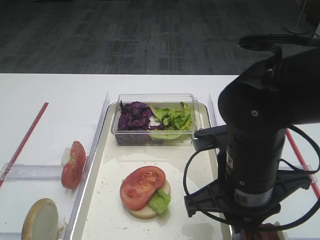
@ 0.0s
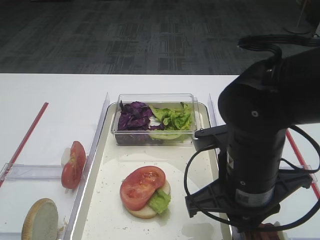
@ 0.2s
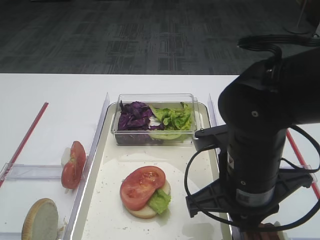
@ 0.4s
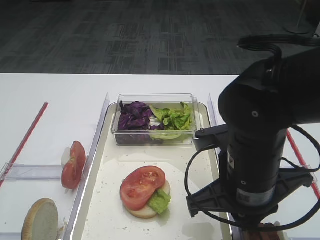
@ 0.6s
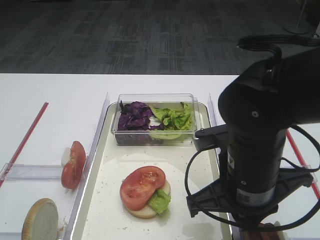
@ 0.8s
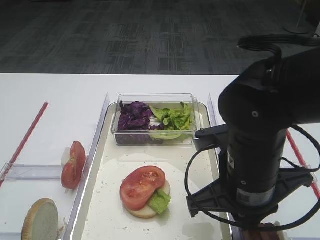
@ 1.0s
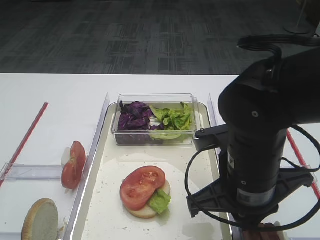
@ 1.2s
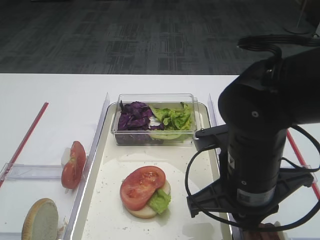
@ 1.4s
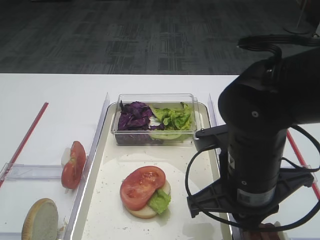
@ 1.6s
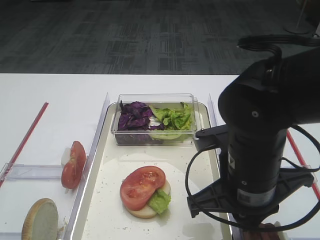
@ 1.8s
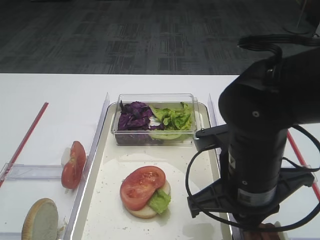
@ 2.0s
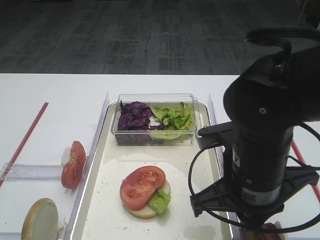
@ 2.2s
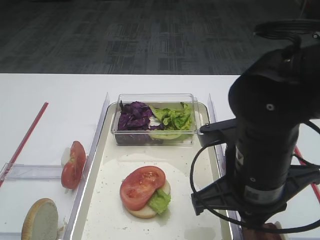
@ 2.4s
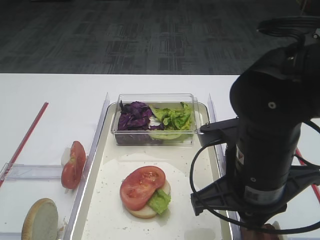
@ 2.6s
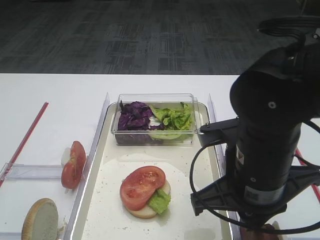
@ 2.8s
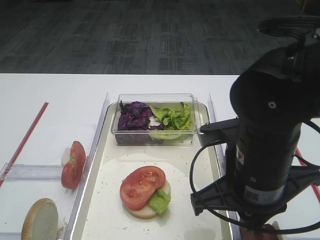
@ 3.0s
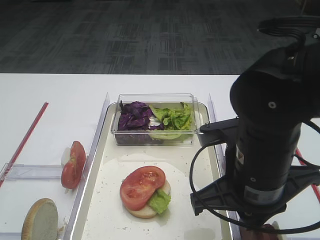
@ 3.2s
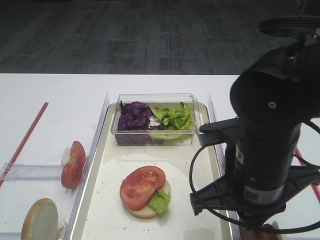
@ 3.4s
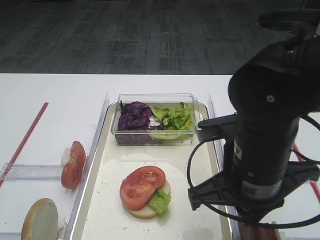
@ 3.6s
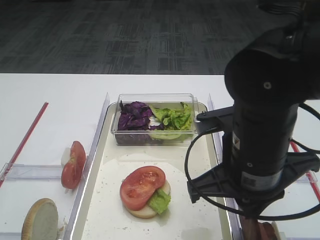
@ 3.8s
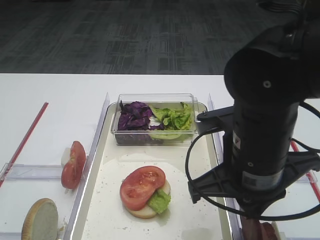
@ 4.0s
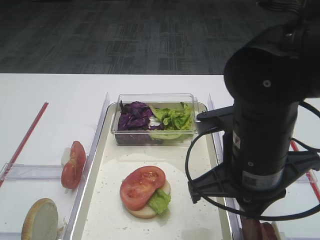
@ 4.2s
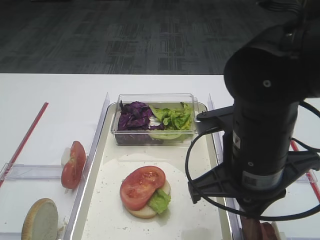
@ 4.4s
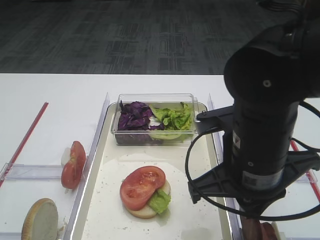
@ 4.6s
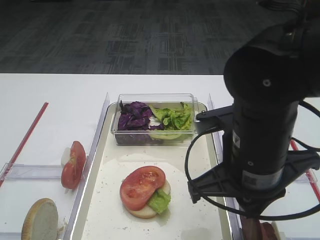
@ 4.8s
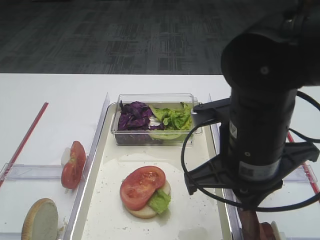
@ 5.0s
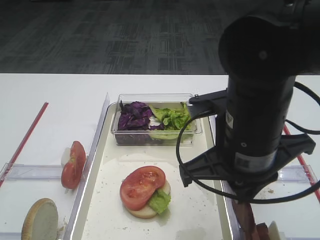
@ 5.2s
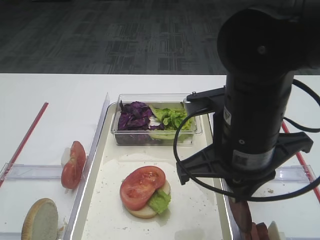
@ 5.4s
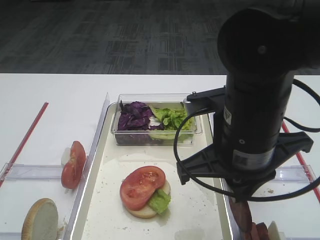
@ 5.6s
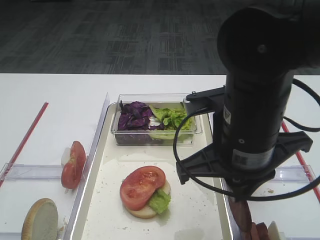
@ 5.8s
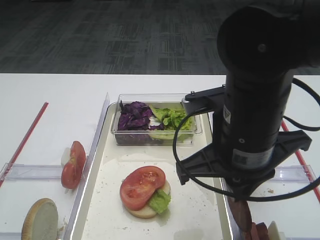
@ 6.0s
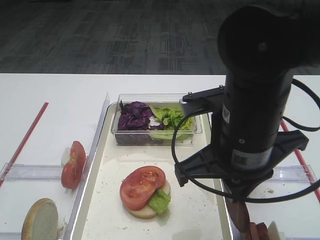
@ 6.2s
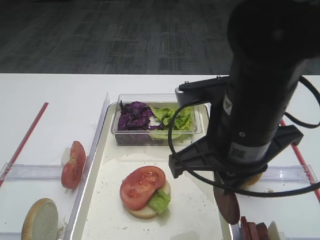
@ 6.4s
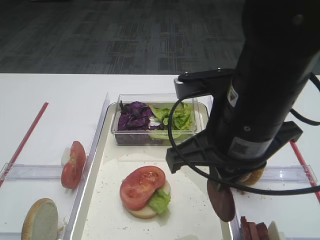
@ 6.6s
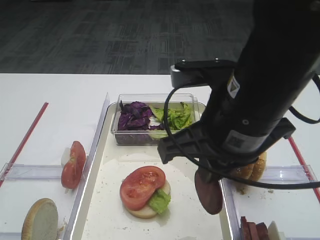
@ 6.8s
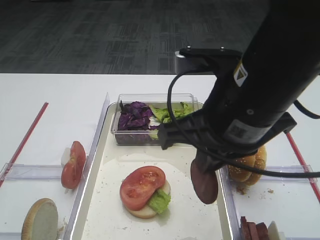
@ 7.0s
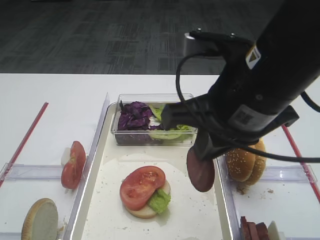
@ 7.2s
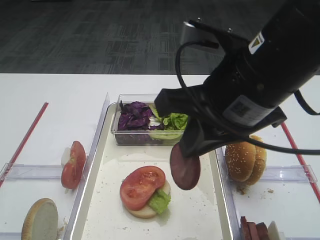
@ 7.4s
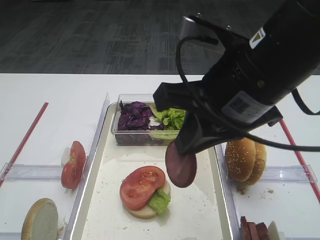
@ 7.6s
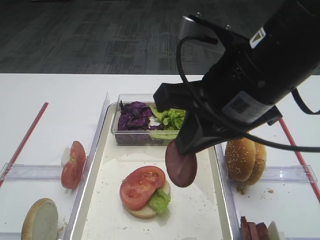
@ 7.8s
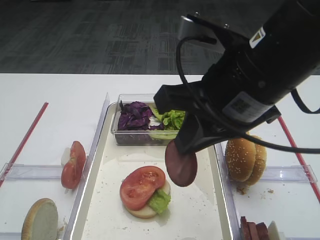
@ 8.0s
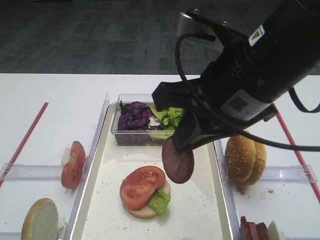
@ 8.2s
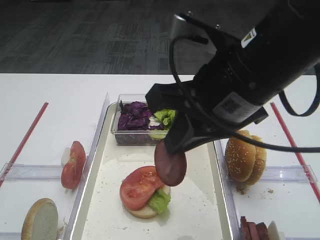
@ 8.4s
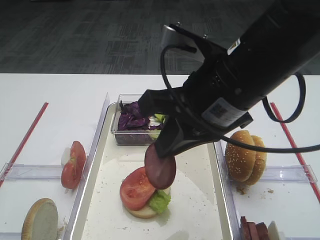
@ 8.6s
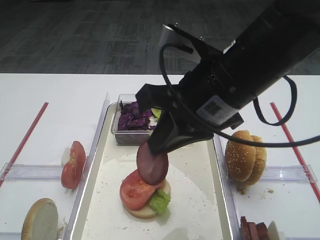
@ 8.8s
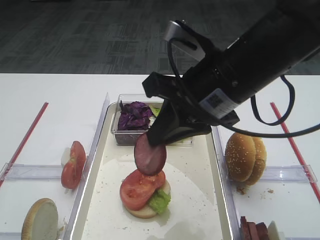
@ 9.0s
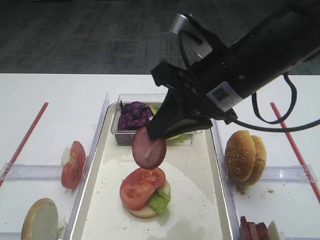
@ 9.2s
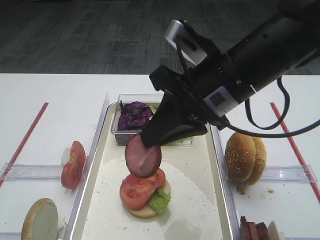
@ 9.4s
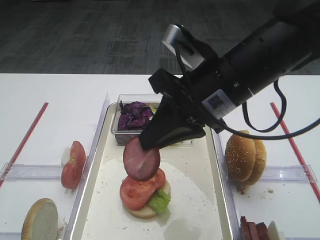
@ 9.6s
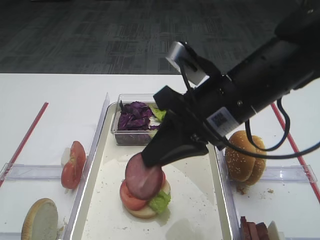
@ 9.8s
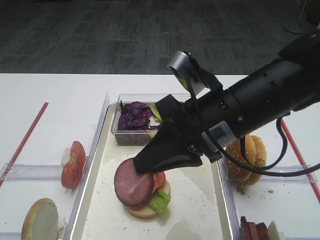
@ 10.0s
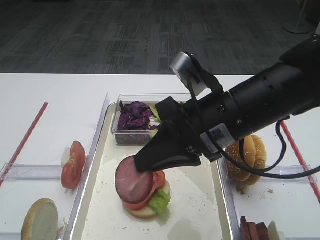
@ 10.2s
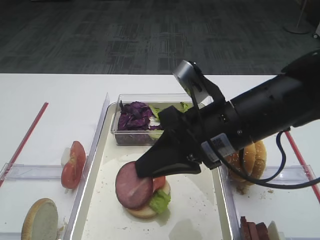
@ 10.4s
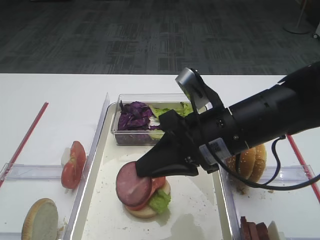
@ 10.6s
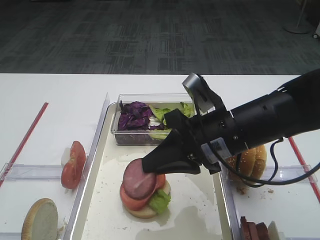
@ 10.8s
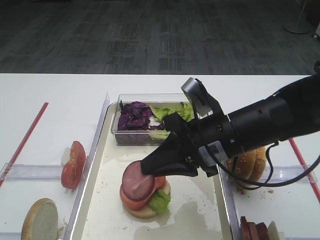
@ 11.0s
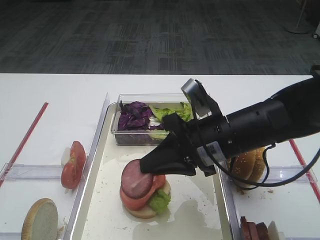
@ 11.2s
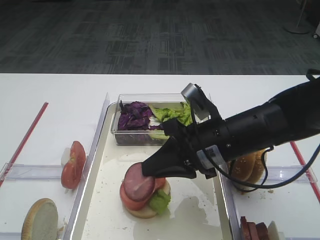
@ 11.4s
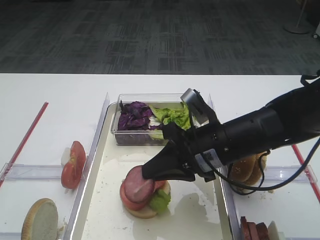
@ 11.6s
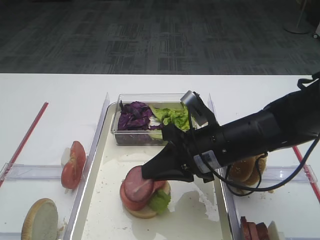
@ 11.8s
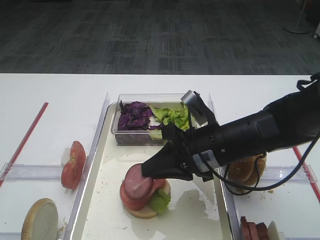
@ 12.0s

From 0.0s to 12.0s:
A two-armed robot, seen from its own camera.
Step, from 0.0s to 6.0s: Pick up the cutlet with the right gripper.
From 0.0s to 1.6s: Neither gripper changes place.
From 1.6s to 6.0s: The grippers make only small movements.
From 6.0s to 7.6s: The right gripper goes approximately 5 cm upward.
From 7.6s to 9.0s: The grippers stay close to where they were, moving slightly.
From 9.0s to 10.4s: The right gripper heads downward, covering approximately 5 cm.
From 10.4s to 12.0s: The right gripper moves downward, approximately 5 cm.

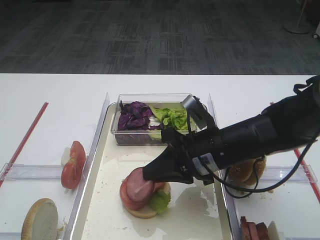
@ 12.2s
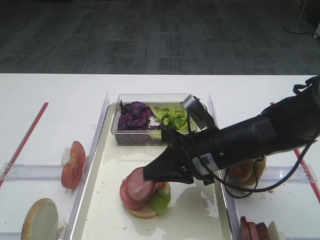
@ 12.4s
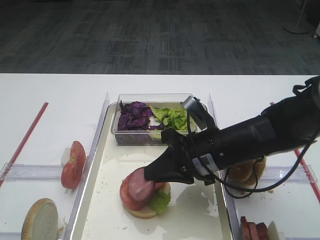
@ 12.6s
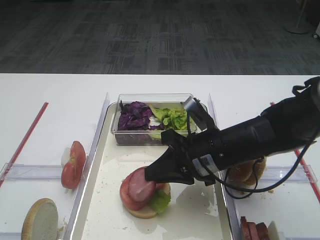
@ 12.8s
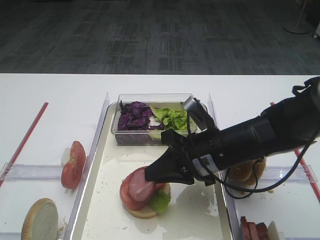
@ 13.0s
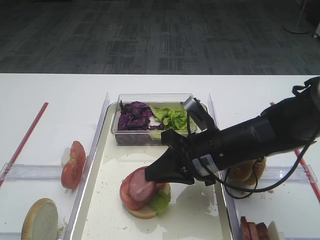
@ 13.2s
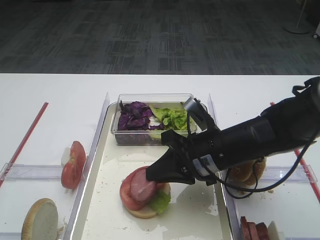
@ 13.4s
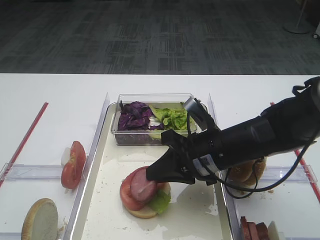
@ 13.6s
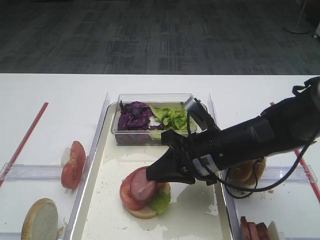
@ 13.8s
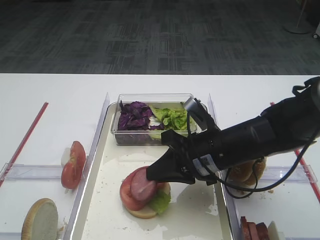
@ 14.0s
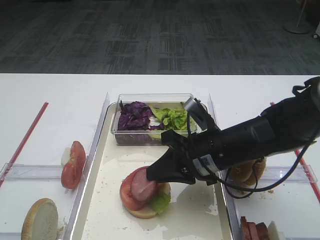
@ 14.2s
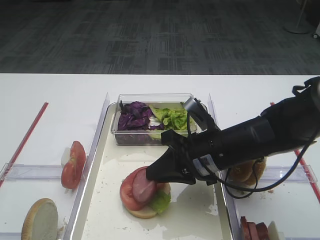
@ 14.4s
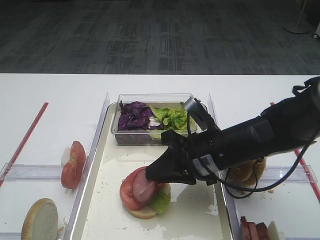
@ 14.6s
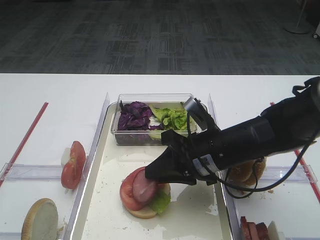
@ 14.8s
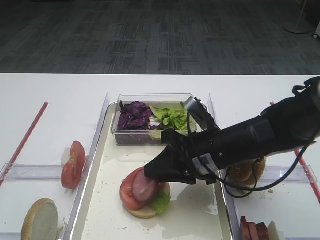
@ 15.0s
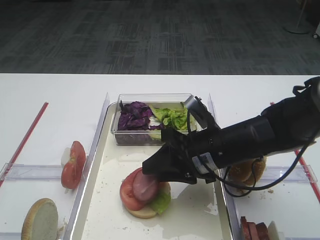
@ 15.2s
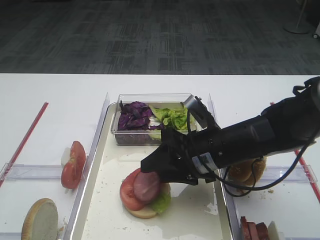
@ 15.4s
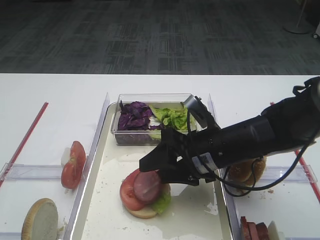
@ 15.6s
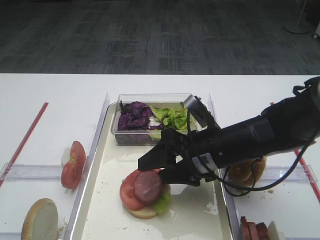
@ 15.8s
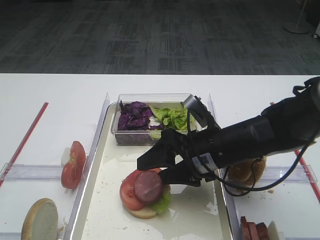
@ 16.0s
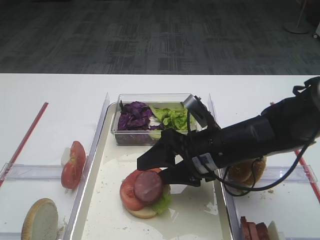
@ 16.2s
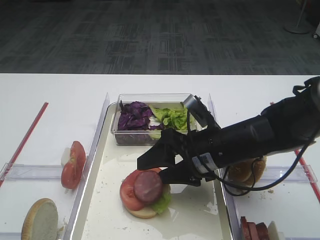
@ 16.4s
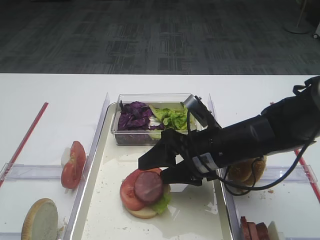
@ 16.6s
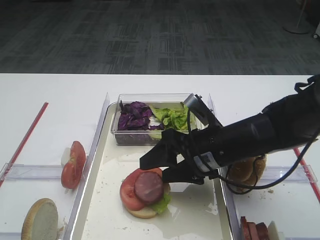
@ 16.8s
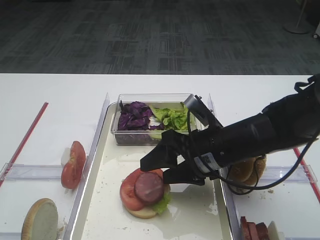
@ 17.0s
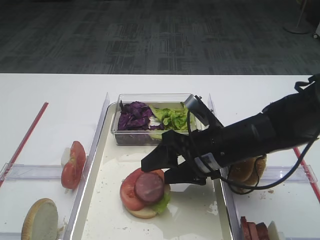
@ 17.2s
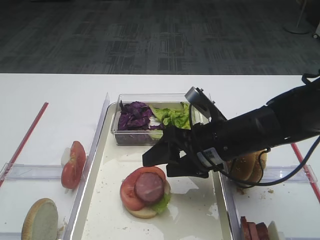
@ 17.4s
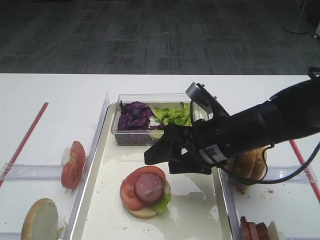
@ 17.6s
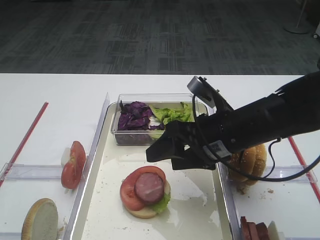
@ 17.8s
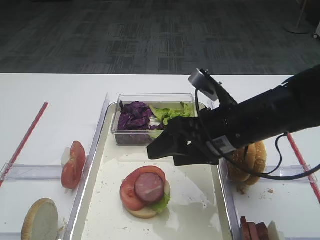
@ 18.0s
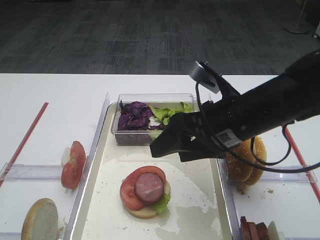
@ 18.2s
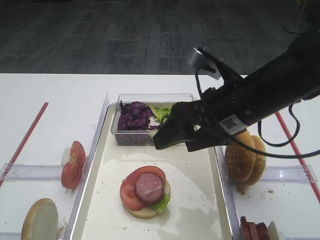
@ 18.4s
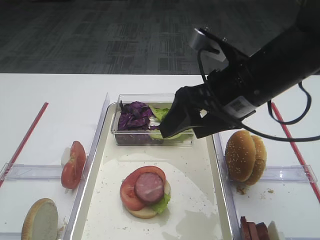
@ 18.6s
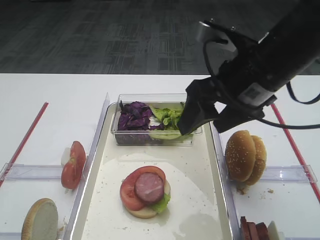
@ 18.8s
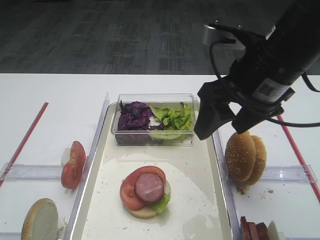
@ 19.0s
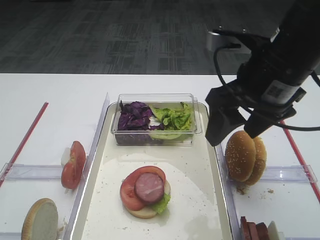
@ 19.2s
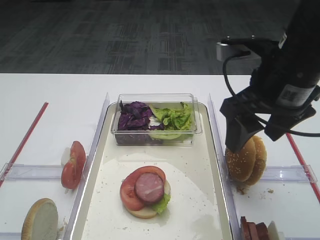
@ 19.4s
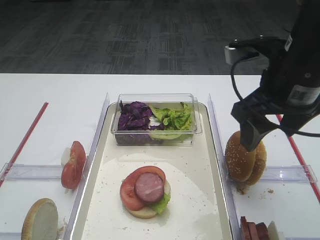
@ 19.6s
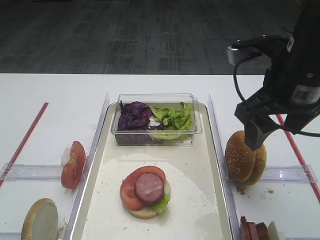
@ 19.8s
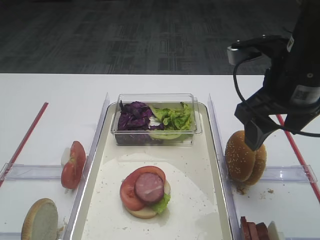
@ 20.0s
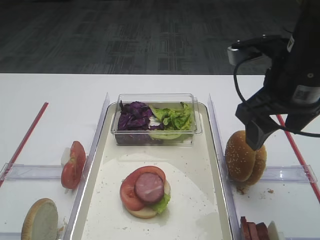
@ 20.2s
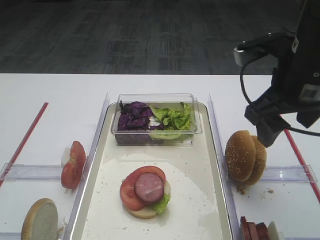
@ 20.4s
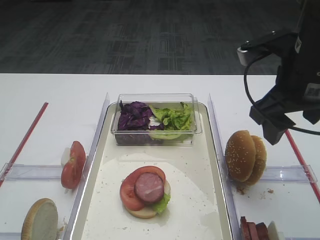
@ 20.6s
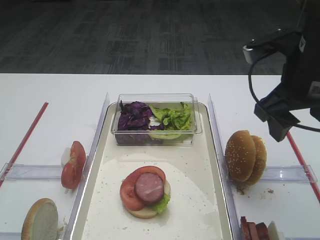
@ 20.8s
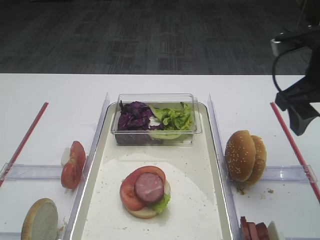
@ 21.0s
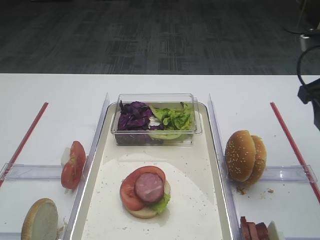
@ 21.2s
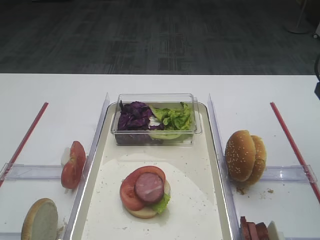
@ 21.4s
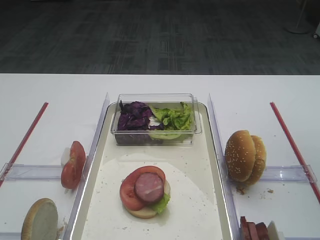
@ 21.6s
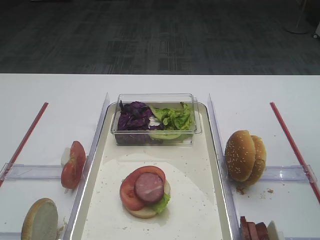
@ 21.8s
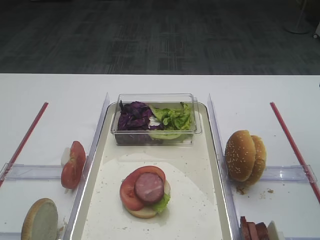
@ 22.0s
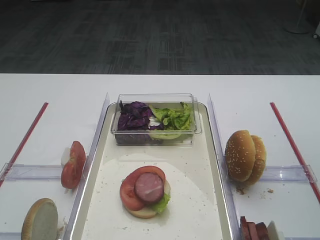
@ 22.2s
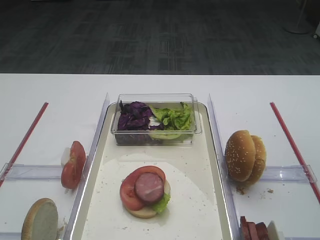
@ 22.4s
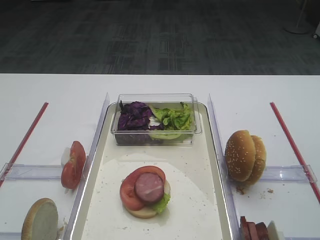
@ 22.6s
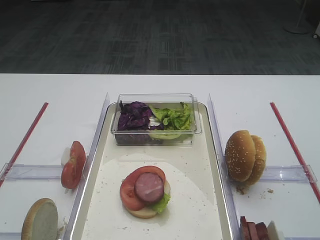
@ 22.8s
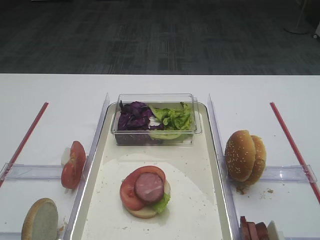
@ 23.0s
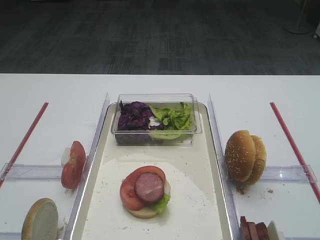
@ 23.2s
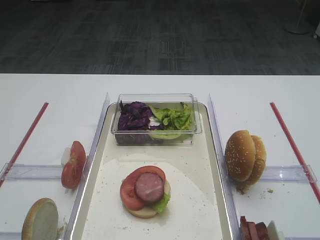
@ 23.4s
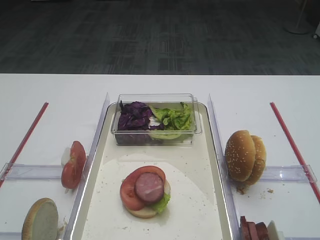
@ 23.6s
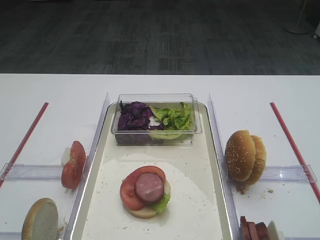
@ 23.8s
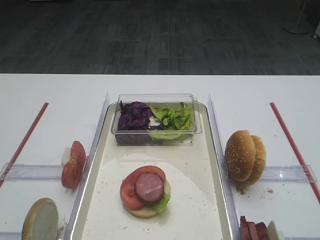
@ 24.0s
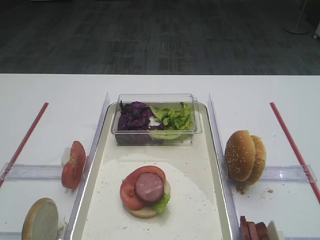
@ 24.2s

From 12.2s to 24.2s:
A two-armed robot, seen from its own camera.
Step, from 12.2s to 18.6s: Place the cutlet on the tomato slice with the right gripper.
From 12.2s to 13.8s: The two grippers keep their place.
From 13.8s to 15.2s: The right gripper opens up.
From 15.2s to 16.6s: The right gripper opens its fingers.
From 16.6s to 18.2s: The right gripper is displaced upward by some 10 cm.
From 18.2s to 19.8s: The right gripper is displaced upward and to the right by some 10 cm.
From 19.8s to 21.2s: The right gripper goes roughly 10 cm to the right.
From 21.2s to 22.6s: The right gripper shifts about 10 cm upward and backward.
